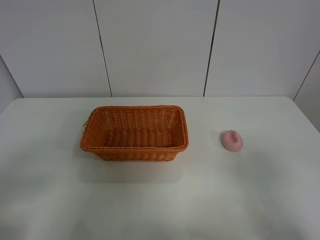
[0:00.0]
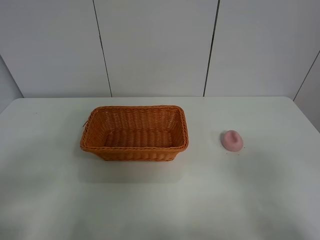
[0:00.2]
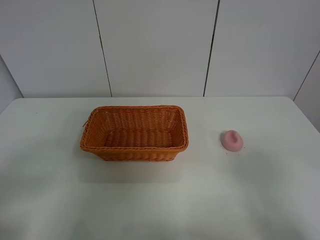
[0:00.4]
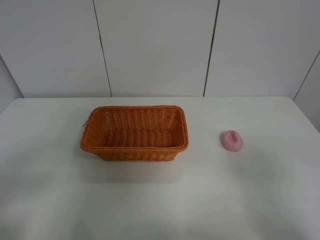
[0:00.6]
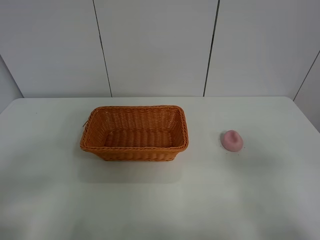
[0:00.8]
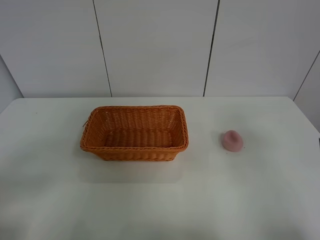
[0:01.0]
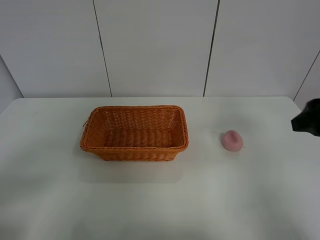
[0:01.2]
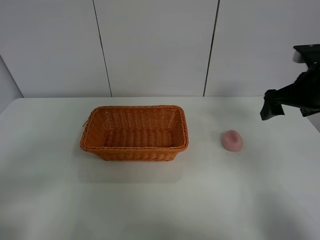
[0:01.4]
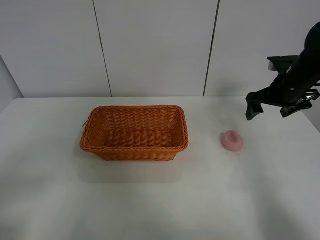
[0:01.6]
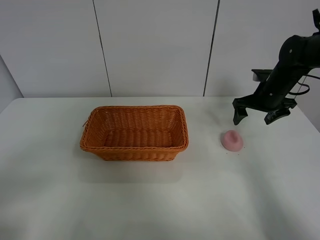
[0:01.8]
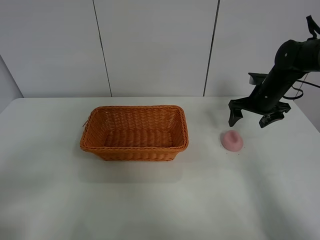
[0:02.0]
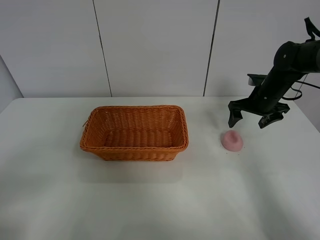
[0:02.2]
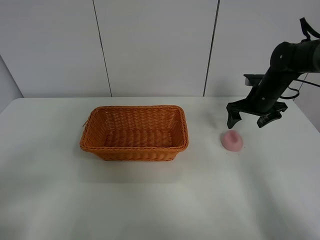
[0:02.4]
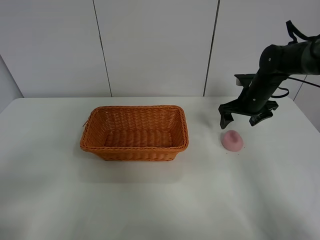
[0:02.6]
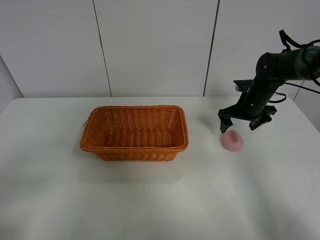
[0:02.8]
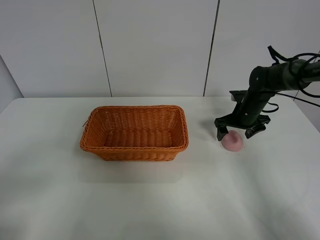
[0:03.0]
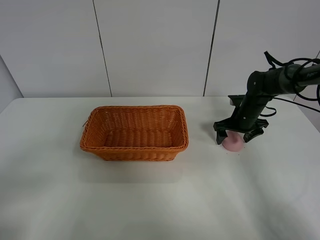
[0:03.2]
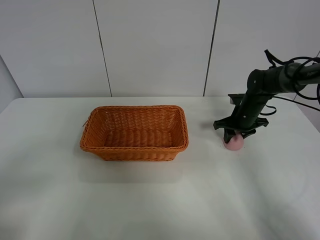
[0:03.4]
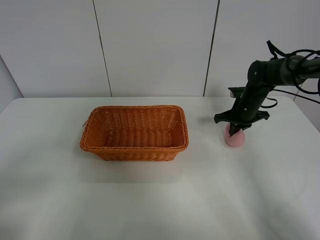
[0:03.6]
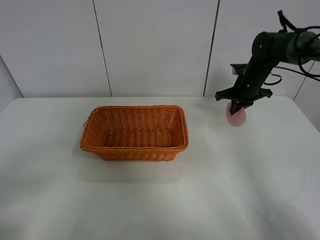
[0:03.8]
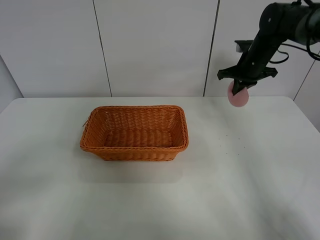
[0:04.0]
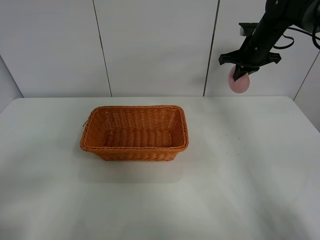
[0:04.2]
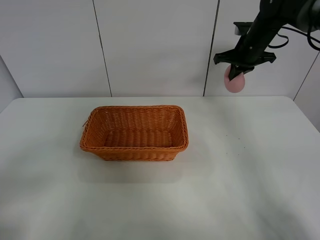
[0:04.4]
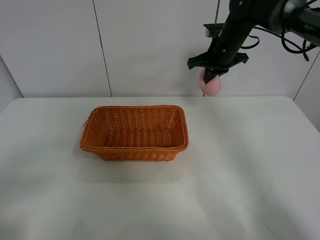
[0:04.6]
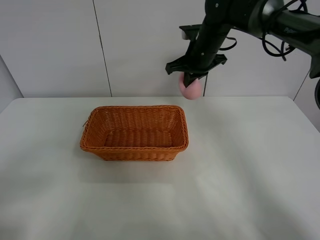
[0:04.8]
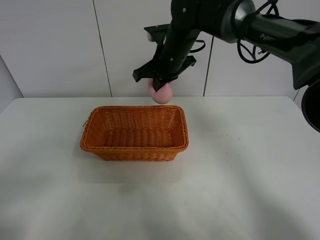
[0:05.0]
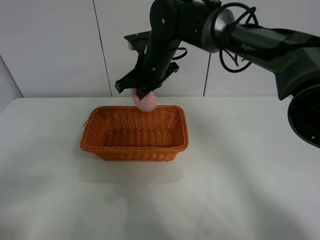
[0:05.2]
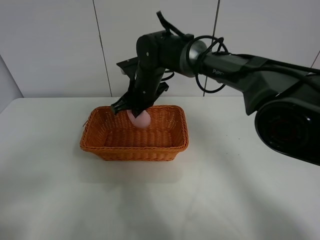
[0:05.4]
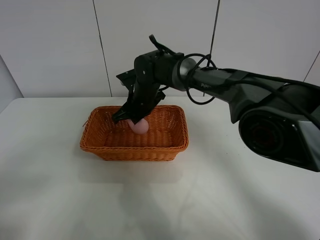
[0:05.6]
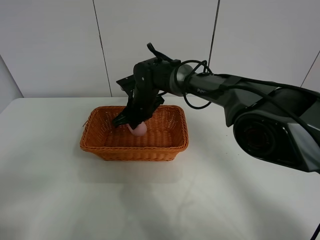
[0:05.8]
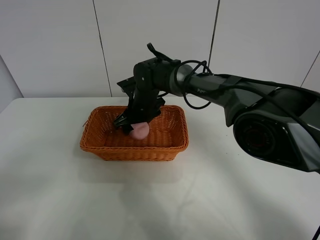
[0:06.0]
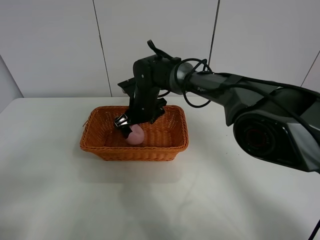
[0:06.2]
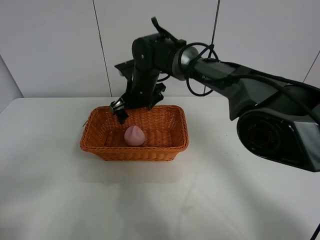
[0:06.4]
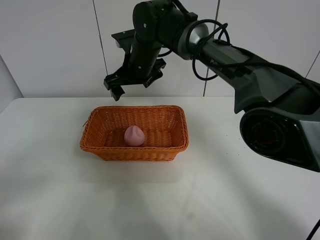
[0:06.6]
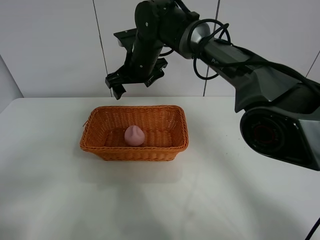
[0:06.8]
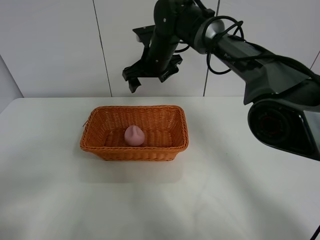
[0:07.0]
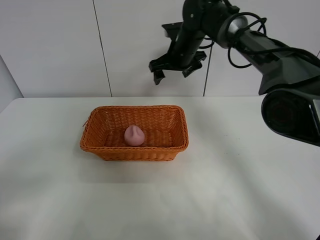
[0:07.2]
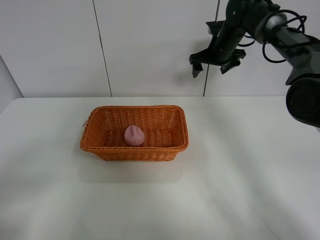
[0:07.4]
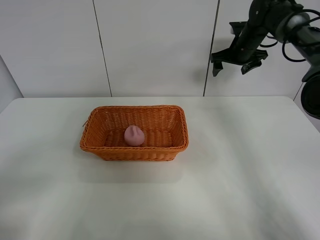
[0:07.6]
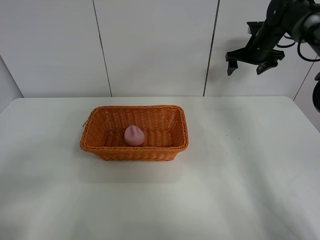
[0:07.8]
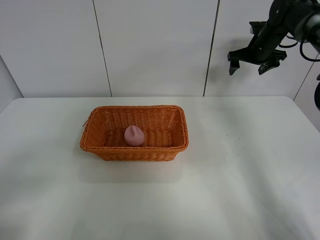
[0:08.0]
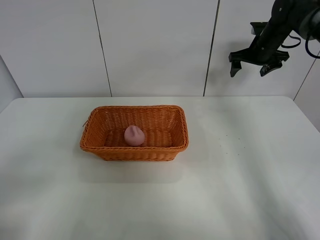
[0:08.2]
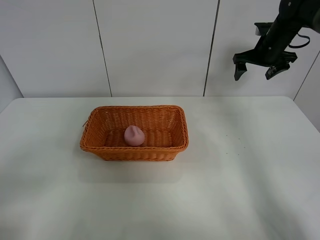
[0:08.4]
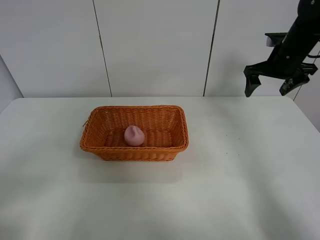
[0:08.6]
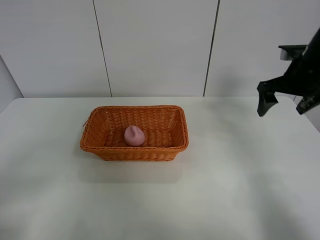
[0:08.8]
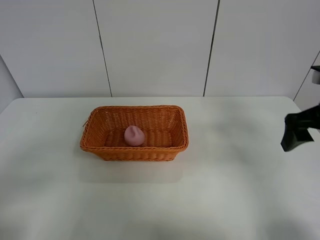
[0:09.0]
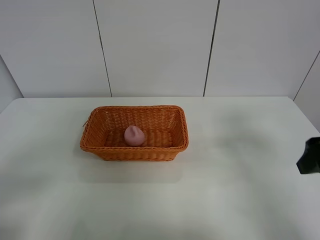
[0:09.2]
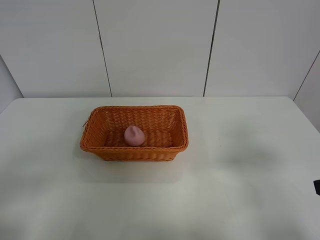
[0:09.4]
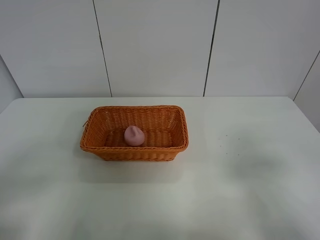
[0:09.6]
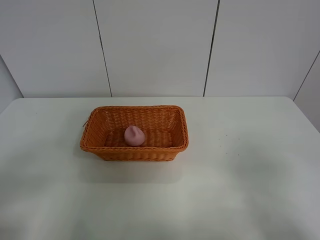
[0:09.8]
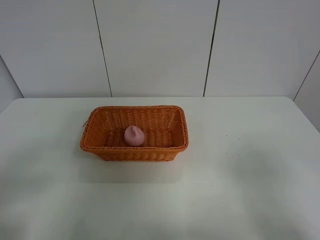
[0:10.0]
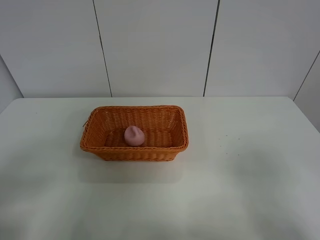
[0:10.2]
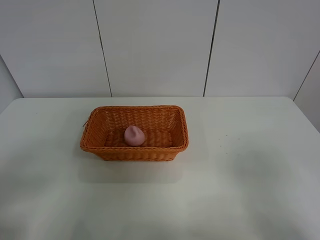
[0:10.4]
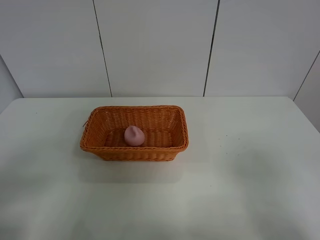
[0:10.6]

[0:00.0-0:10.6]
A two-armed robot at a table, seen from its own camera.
Step, 0:00.0 to 0:03.6: Grasp the peach with right gripper.
Step, 0:03.8 to 0:06.4: Place the peach in the basket with right gripper.
0:00.0 to 0:01.6: The right gripper shifts approximately 35 cm forward.
0:01.6 to 0:03.0: The right gripper goes about 10 cm downward and forward.
0:03.0 to 0:04.6: The right gripper moves upward and to the left, about 20 cm, and closes up.
0:04.6 to 0:06.0: The right gripper heads to the left and downward, covering roughly 25 cm, and opens.
0:06.0 to 0:07.6: The right gripper moves to the right and forward, approximately 30 cm.
0:07.6 to 0:09.0: The right gripper goes roughly 30 cm backward.
0:09.0 to 0:10.6: The right gripper is displaced backward by about 25 cm.

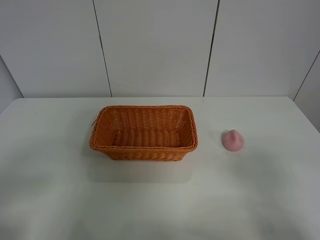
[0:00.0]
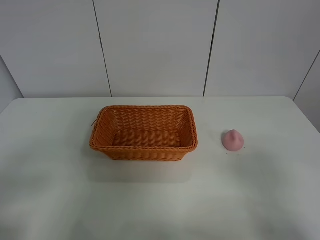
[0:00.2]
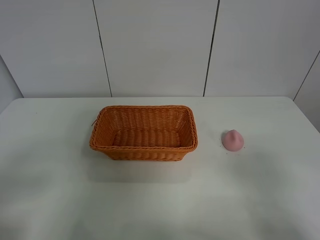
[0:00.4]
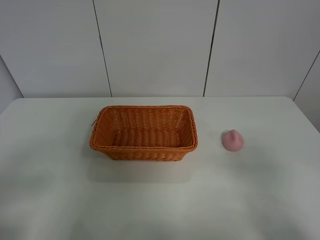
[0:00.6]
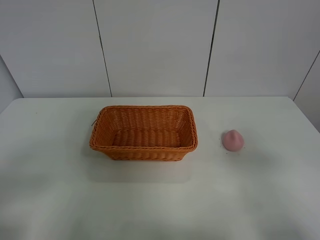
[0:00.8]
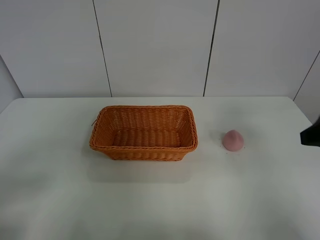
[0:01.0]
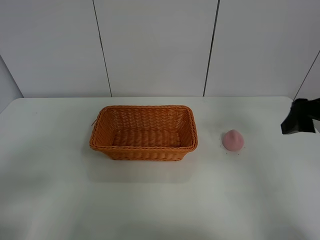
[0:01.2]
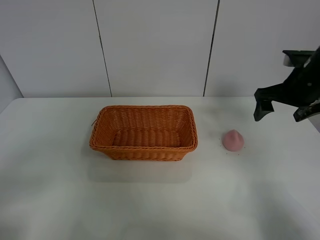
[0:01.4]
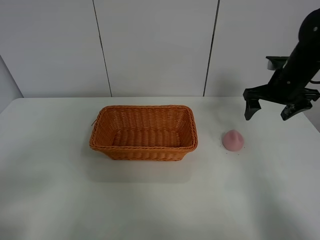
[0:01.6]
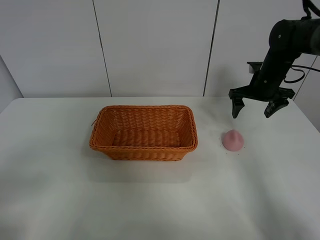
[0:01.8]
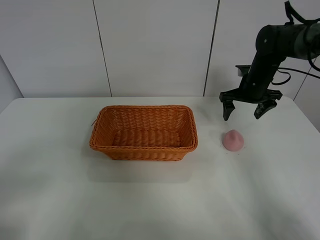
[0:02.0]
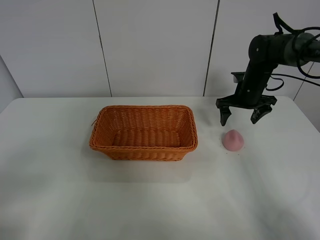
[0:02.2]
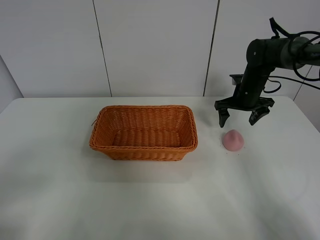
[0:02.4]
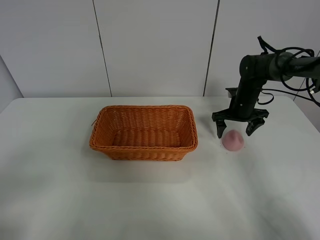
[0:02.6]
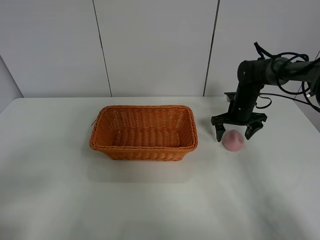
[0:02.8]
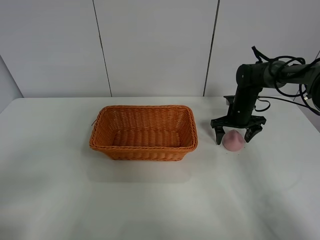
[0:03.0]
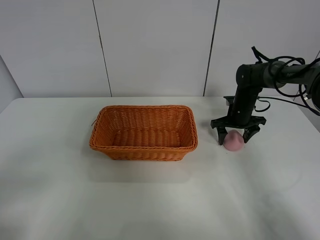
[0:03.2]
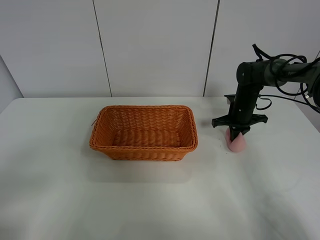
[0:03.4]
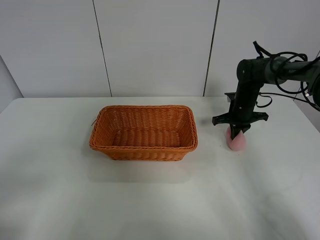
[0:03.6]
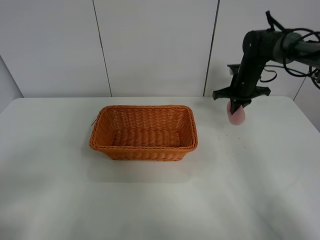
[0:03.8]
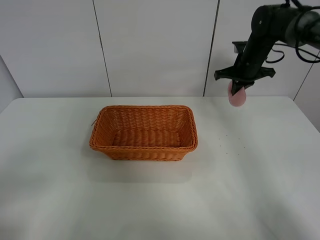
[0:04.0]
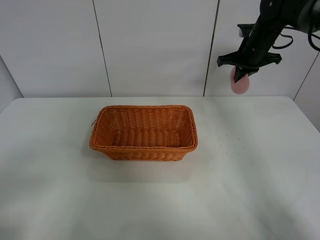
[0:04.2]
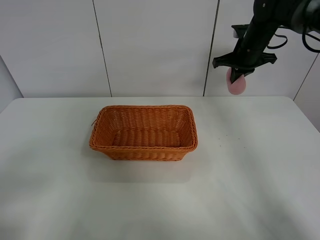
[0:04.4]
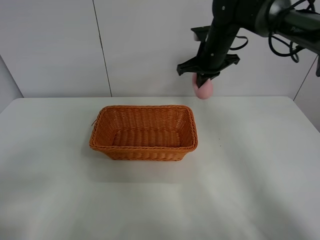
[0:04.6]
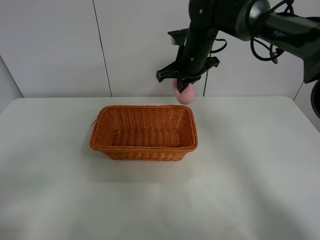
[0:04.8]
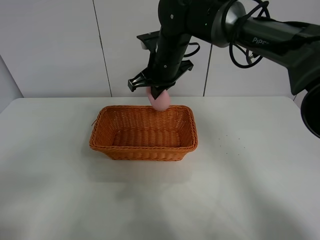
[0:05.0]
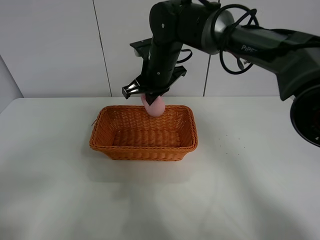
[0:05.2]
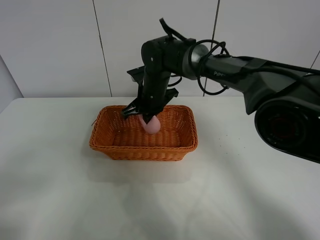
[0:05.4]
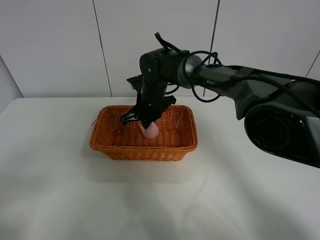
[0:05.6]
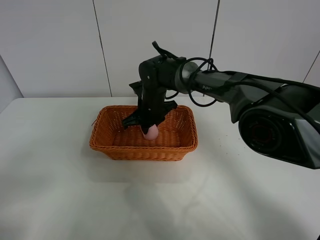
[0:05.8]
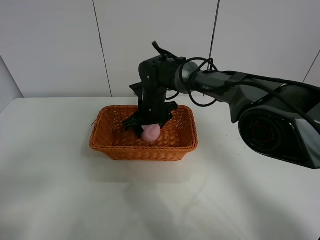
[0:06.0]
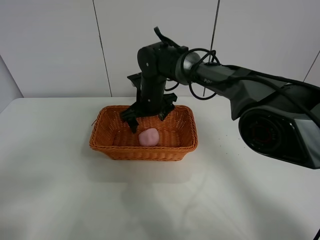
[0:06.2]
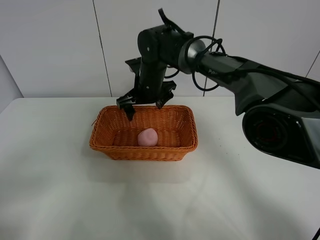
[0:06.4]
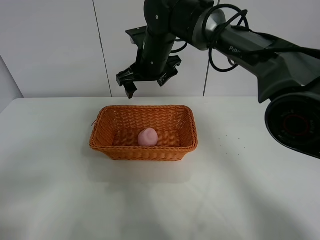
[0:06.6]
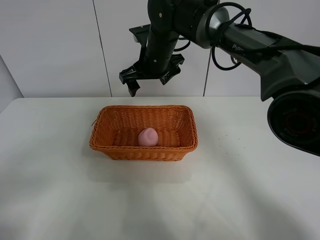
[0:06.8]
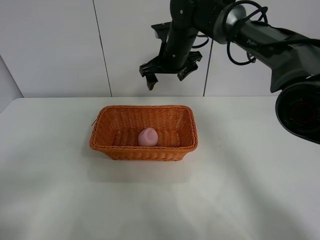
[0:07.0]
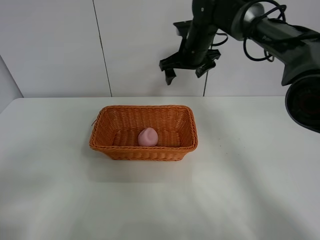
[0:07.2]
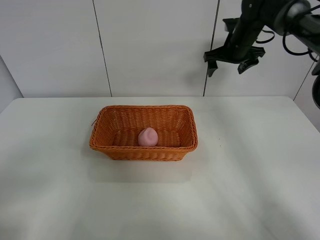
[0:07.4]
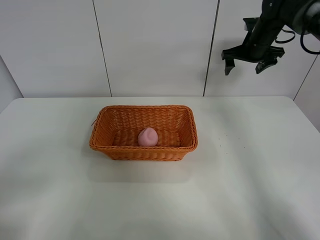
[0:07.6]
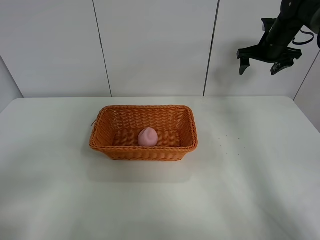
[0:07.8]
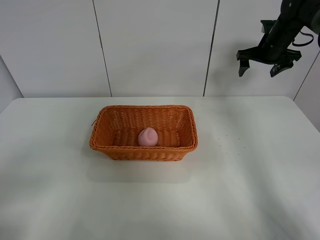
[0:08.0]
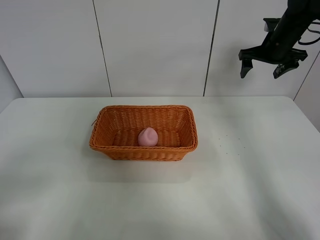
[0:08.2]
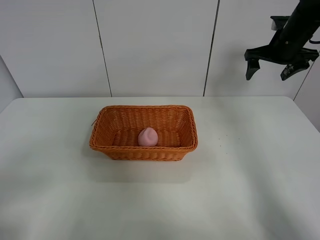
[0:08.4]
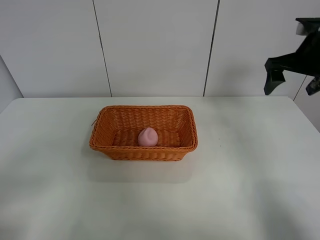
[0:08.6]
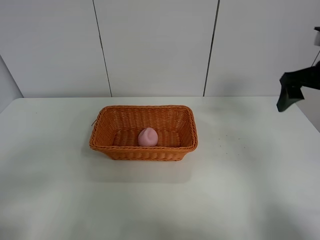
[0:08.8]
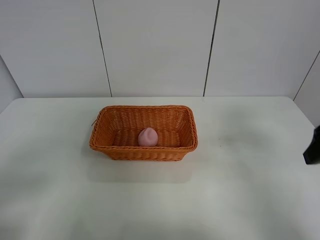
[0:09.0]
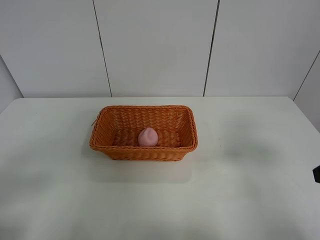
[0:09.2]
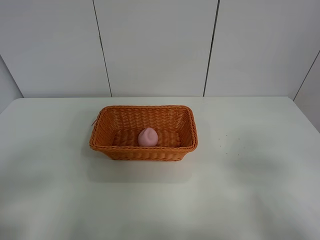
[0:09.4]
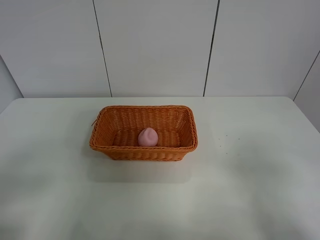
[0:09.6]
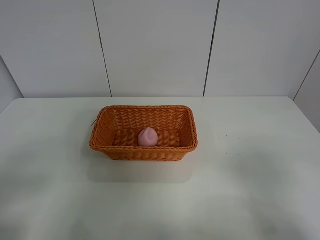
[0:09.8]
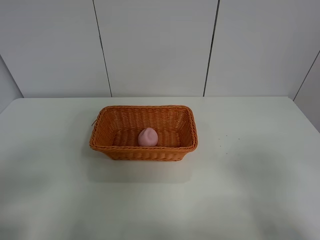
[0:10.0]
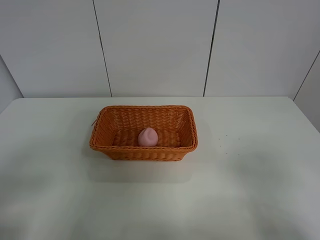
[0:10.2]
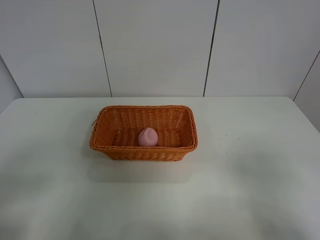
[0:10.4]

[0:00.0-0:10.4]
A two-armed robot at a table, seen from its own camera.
Step, 0:00.0 to 0:03.6: Grasp the peach with right gripper.
Step, 0:03.8 to 0:06.4: Place the peach in the basket with right gripper.
0:00.0 to 0:01.4: The right gripper shifts some 35 cm forward.
0:01.4 to 0:03.0: The right gripper heads downward and forward, covering approximately 20 cm.
0:03.0 to 0:04.4: The right gripper shifts roughly 15 cm upward, and closes.
0:04.4 to 0:06.0: The right gripper travels to the left and downward by some 25 cm, and opens.
0:06.0 to 0:07.4: The right gripper travels to the right, upward and forward by approximately 30 cm.
0:07.4 to 0:09.0: The right gripper shifts roughly 35 cm backward.
0:09.0 to 0:10.4: The right gripper shifts about 15 cm backward.

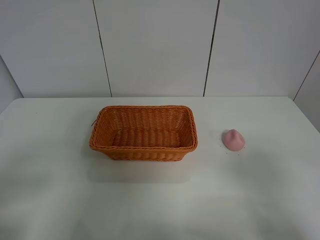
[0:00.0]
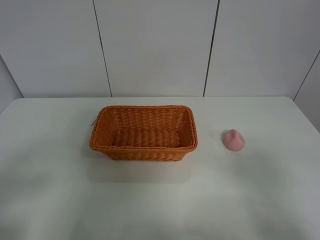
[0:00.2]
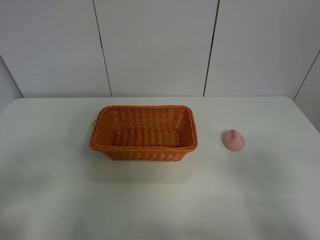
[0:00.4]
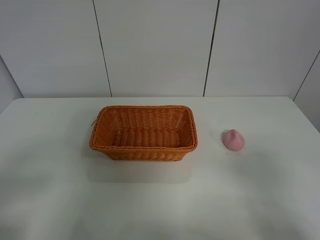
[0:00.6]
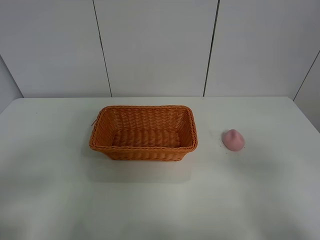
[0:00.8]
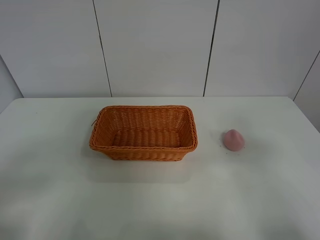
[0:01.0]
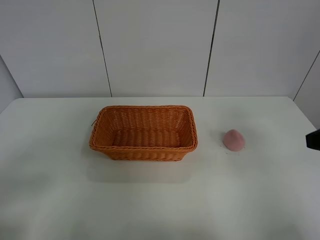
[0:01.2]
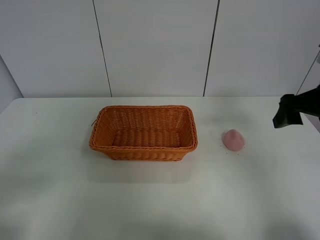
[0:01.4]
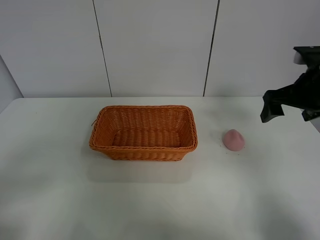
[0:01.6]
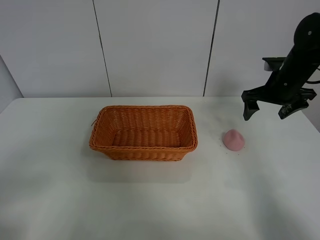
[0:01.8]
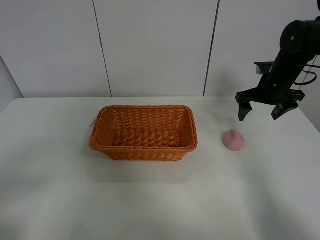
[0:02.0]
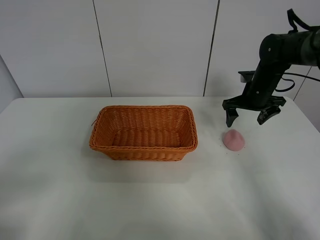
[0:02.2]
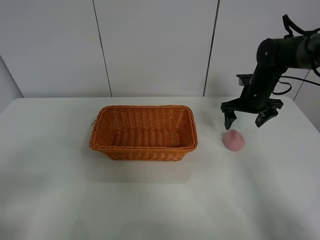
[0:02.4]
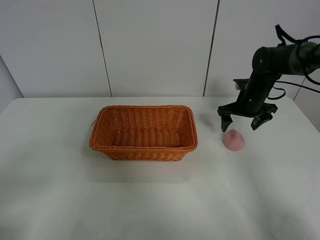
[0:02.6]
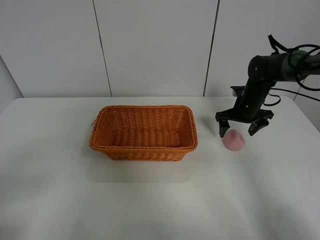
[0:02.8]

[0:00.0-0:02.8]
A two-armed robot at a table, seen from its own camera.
0:00.0 to 0:01.4: The right gripper shifts some 25 cm forward.
0:01.4 to 0:02.8: The right gripper shifts about 25 cm forward and downward.
